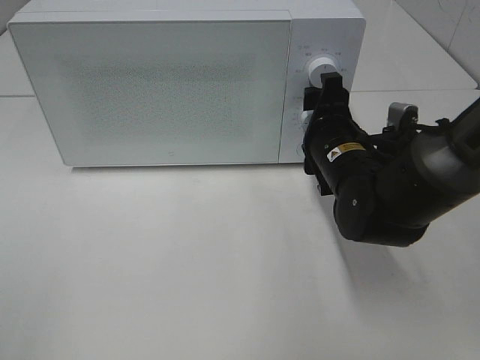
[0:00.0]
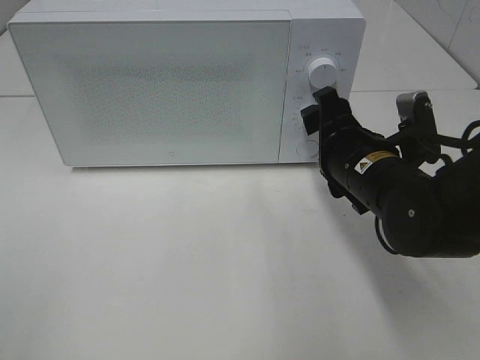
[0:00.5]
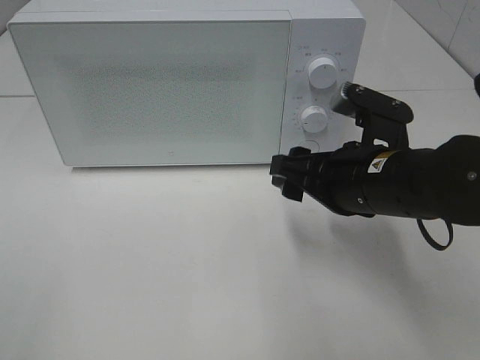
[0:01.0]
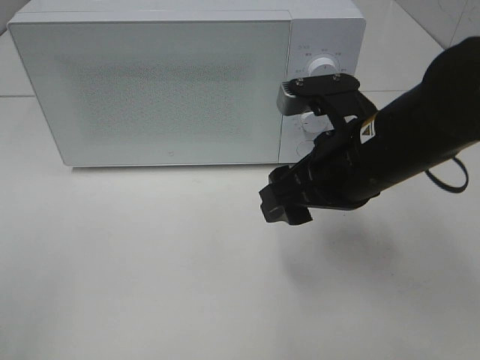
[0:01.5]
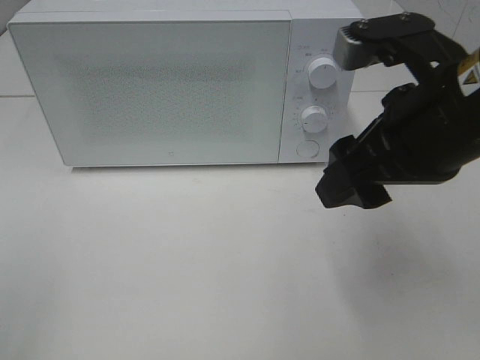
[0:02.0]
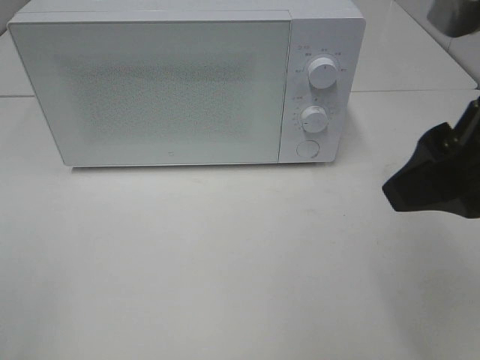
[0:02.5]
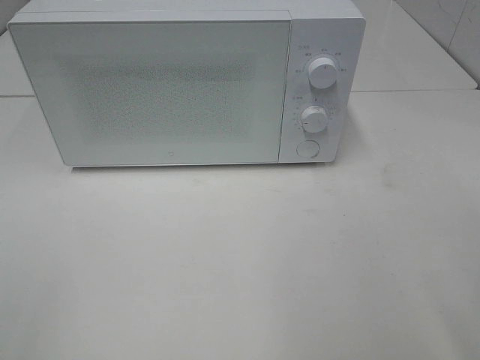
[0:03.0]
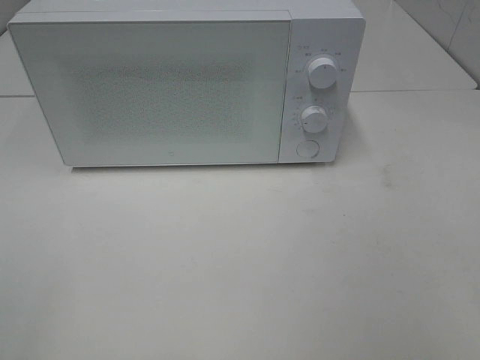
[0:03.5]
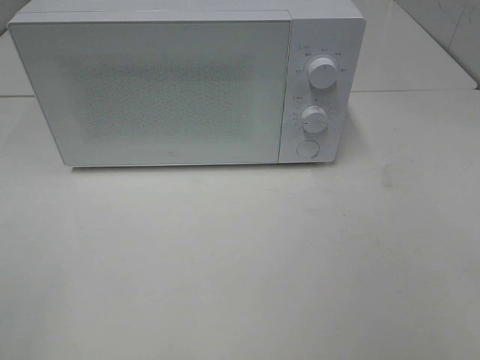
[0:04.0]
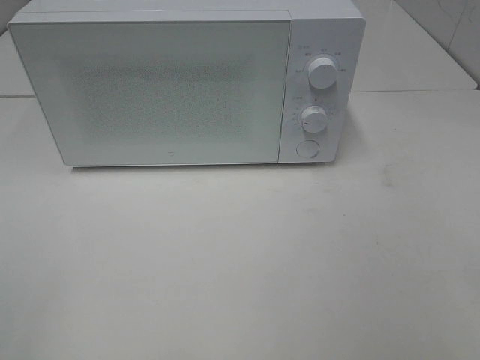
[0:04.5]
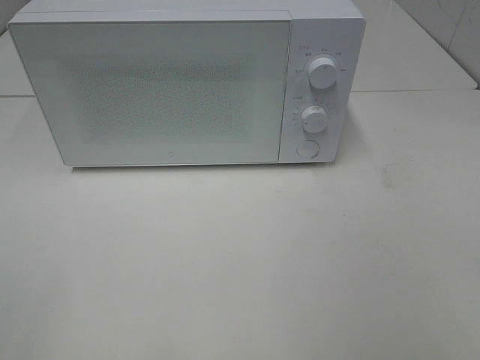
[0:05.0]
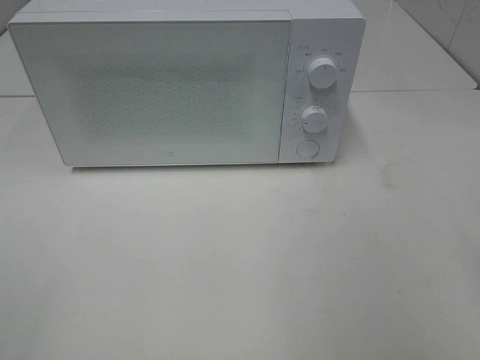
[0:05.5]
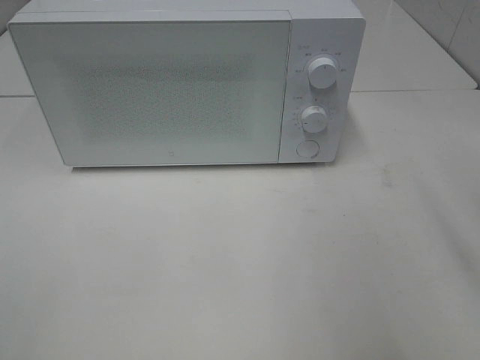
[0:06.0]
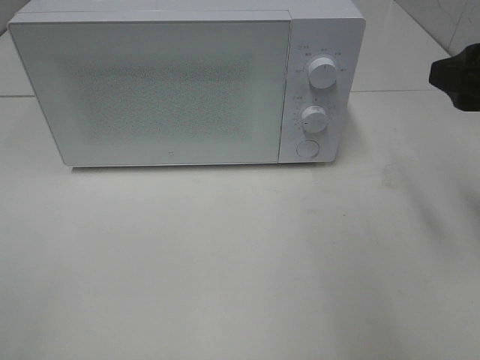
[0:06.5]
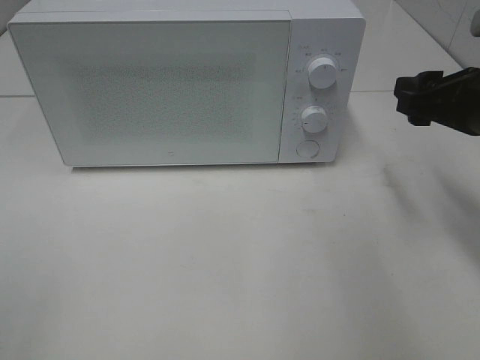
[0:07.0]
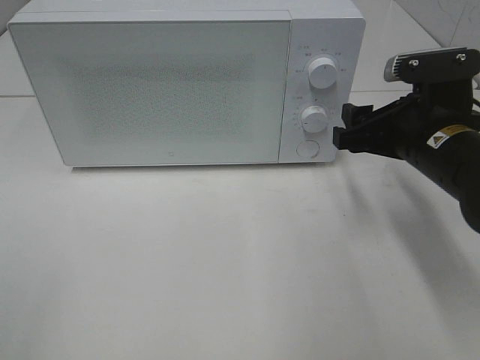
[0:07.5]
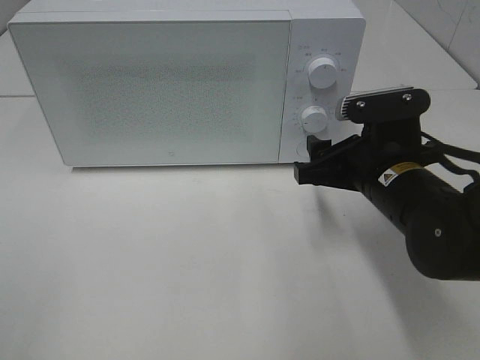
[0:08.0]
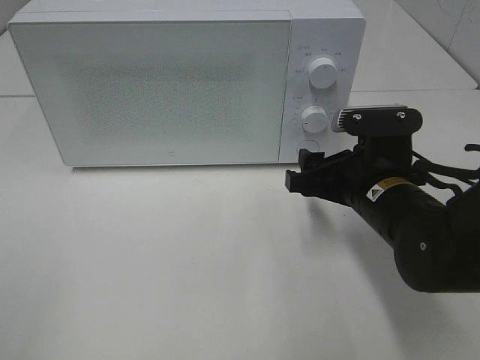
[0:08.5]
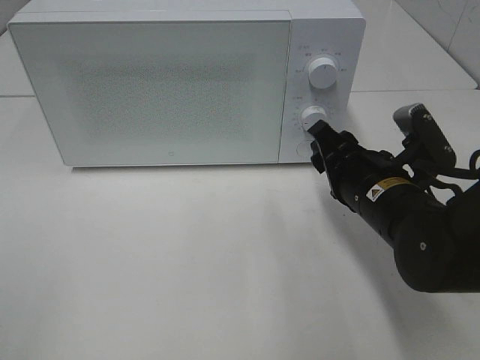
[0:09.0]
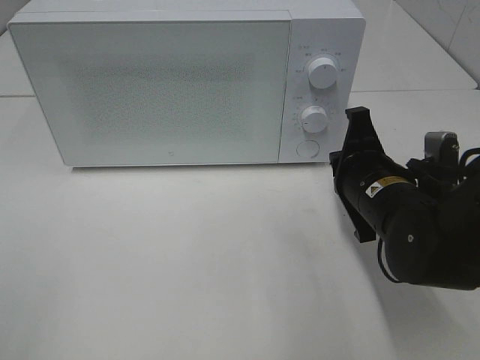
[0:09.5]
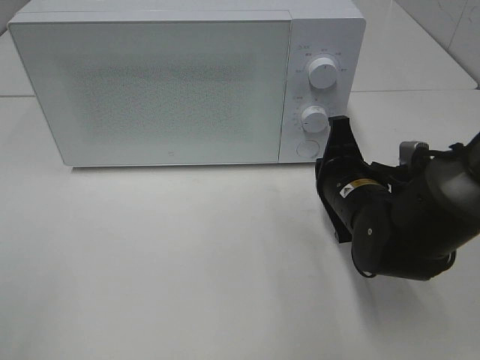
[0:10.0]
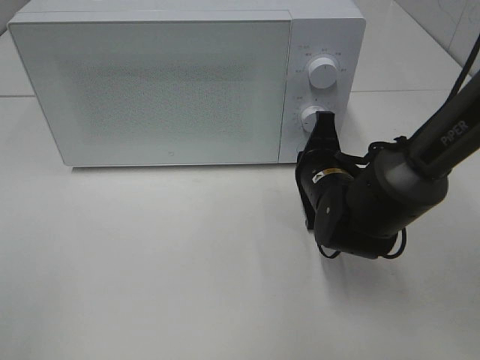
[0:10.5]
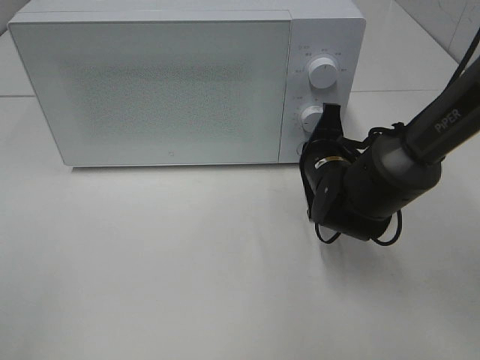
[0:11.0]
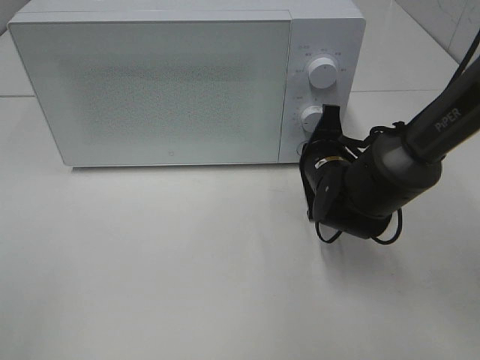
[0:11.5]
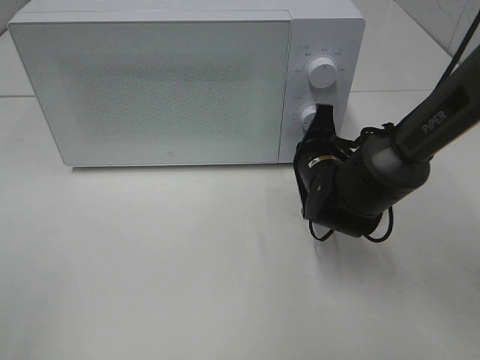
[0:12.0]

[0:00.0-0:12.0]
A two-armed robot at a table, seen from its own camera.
Task of the whole recording: Heat the burger.
0:00.0 to 0:02.0: The right gripper is displaced upward and backward by some 20 cm.
0:02.0 to 0:04.0: The right gripper moves backward and to the right, some 25 cm.
0:06.0 to 0:08.0: The right gripper shifts about 20 cm downward, to the left and forward.
0:08.0 to 0:10.0: The right gripper ends up some 5 cm from where it was, and closes its fingers.
0:10.0 to 0:12.0: The right gripper is displaced forward by roughly 5 cm.

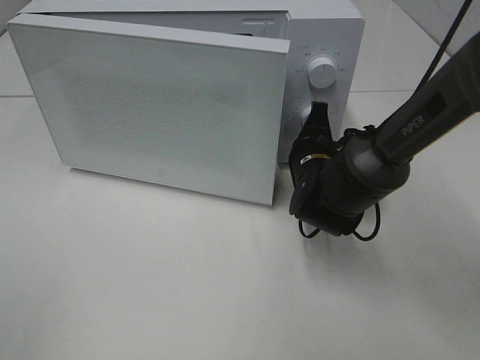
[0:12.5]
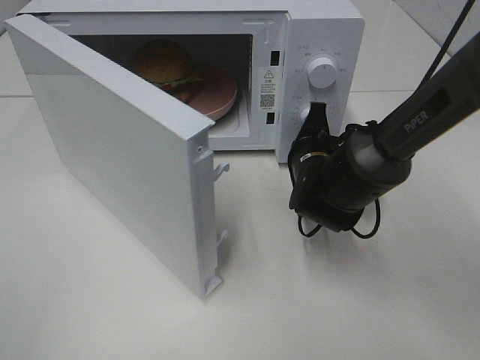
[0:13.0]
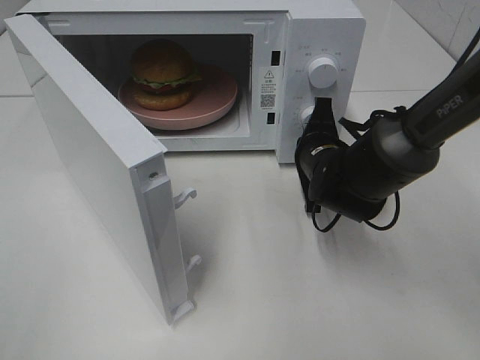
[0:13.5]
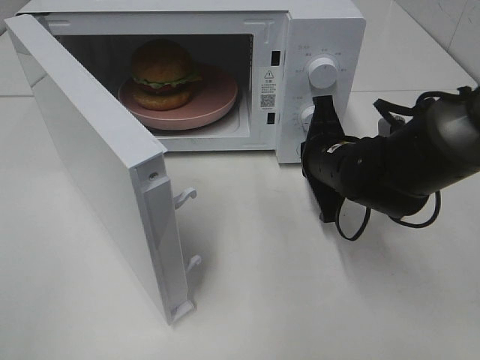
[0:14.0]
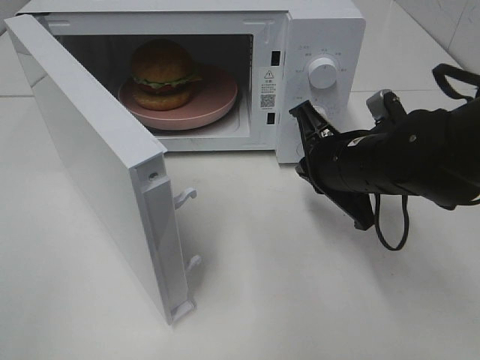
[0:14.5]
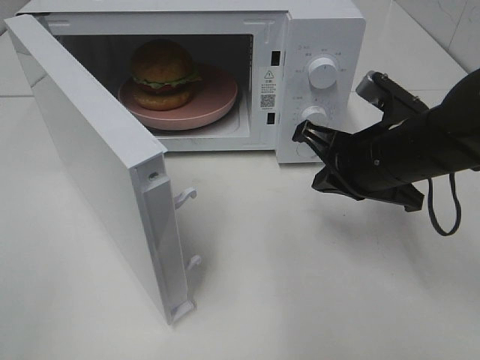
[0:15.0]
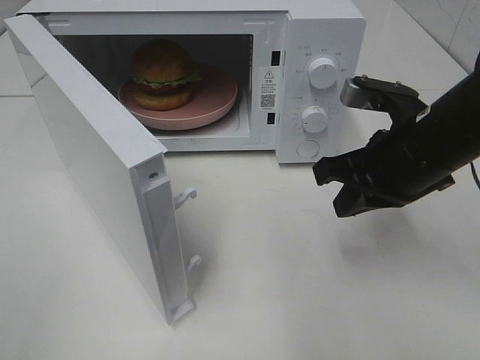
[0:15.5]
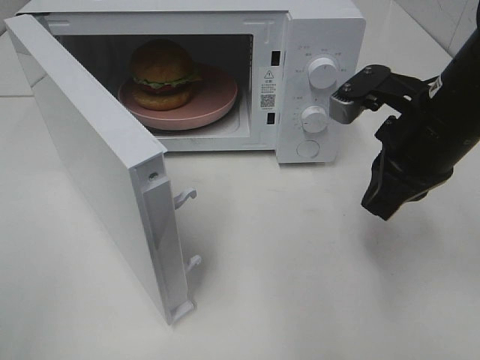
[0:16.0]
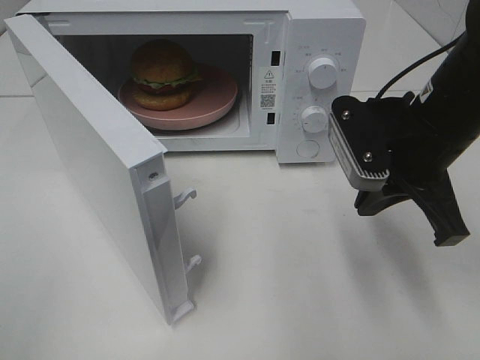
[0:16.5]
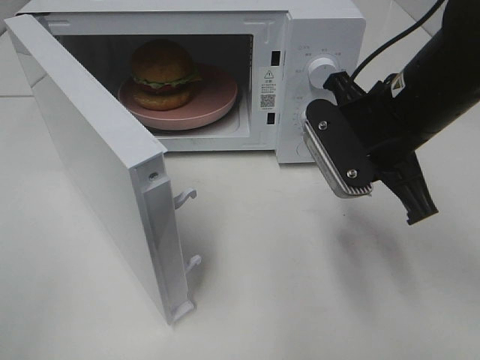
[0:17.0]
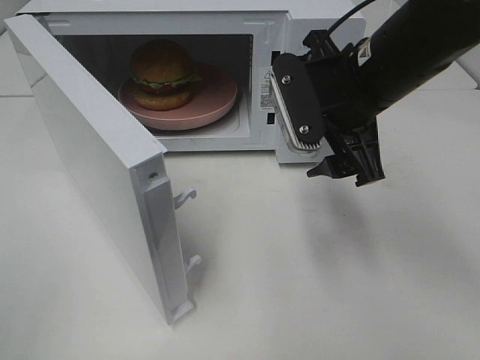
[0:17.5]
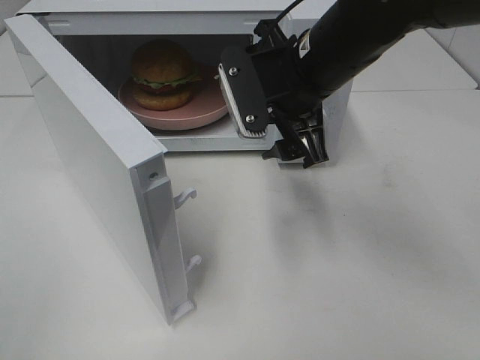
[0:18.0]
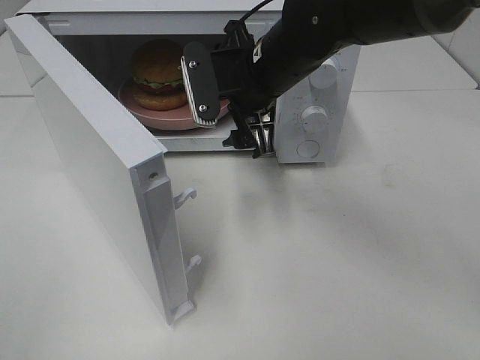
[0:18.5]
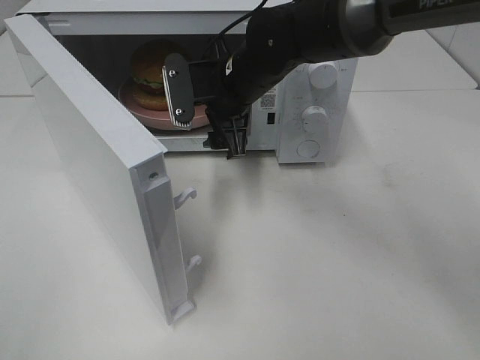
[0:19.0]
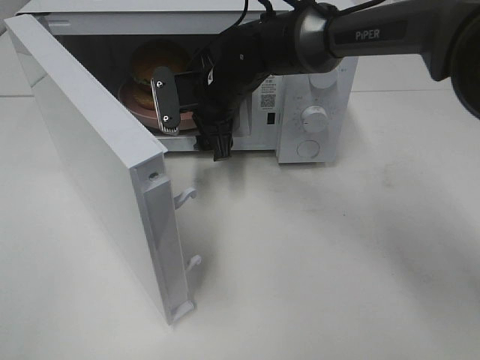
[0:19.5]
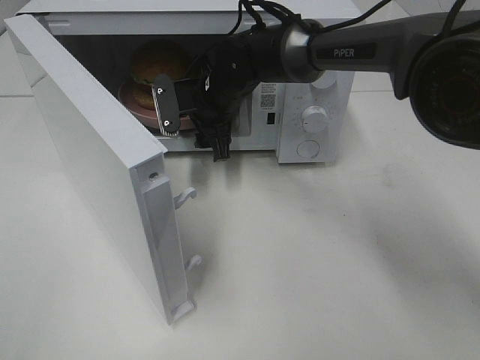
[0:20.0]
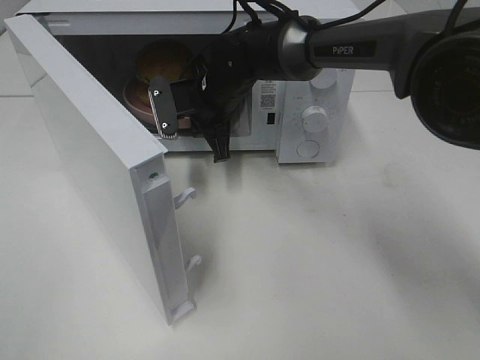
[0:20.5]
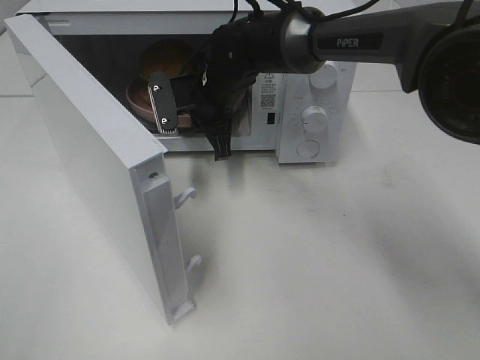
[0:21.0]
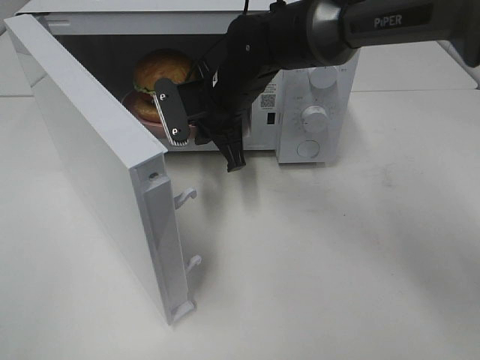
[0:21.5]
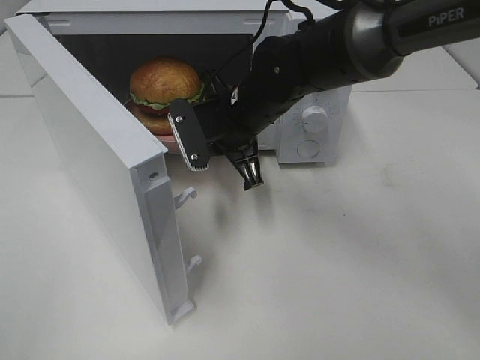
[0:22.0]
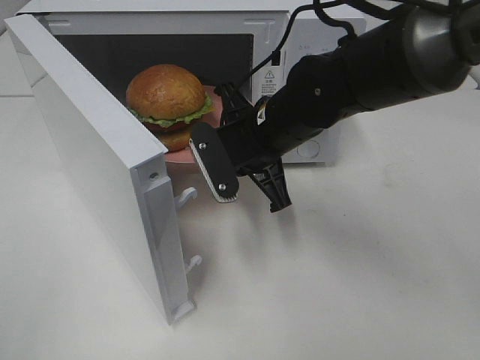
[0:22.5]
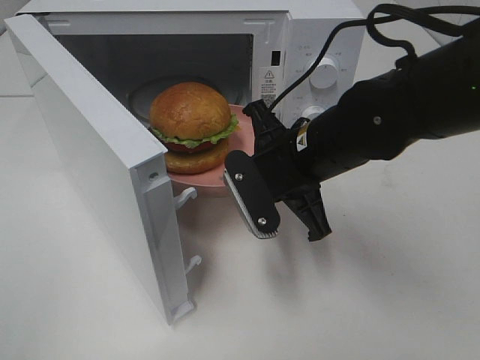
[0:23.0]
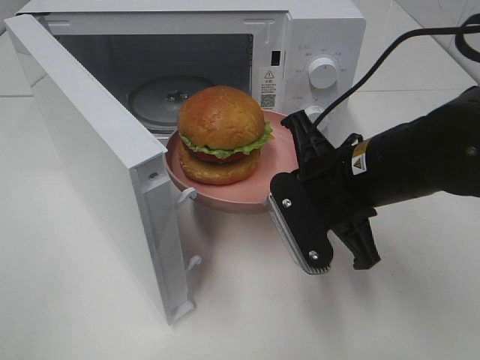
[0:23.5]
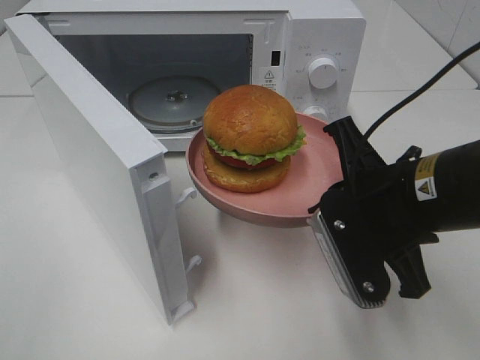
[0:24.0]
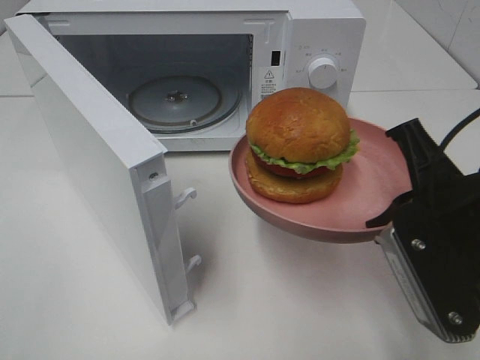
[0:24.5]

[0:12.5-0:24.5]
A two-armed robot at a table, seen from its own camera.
Task of the whole recording: Heat the burger.
Step, 0:14.0 to 0:20.0: Right hand: grab the plate with the hamburger.
0:12.5 to 0:14.5: The right gripper is displaced upward and backward by some 10 cm.
0:14.5 to 0:16.5: The right gripper is displaced upward by approximately 5 cm.
0:16.5 to 0:18.5: The right gripper shifts roughly 15 cm to the left and forward, and opens.
0:18.5 to 0:20.5: The right gripper heads forward, downward and to the left, covering some 15 cm, and closes.
0:20.5 to 0:22.5: The right gripper moves backward and to the right, approximately 15 cm.
0:22.5 to 0:24.5: The right gripper is displaced backward and to the right by some 20 cm.

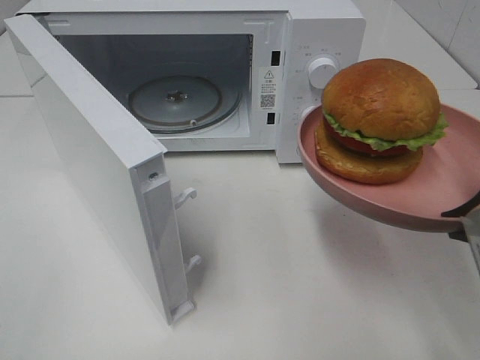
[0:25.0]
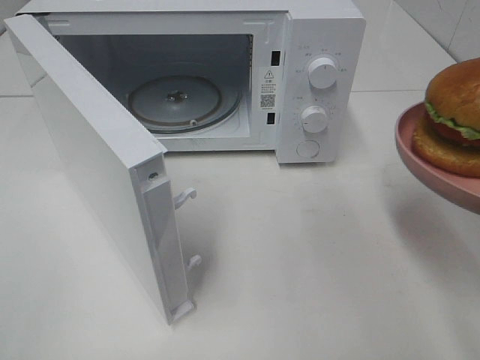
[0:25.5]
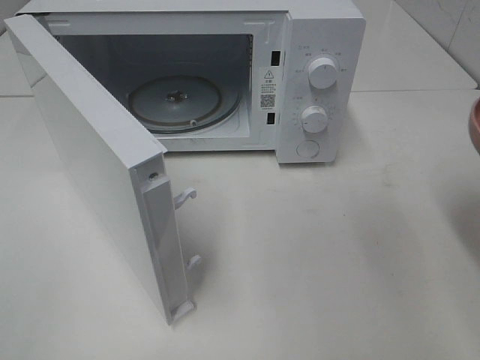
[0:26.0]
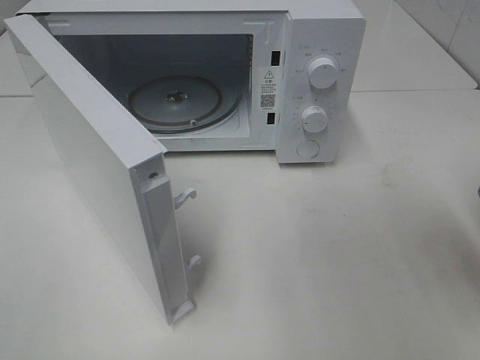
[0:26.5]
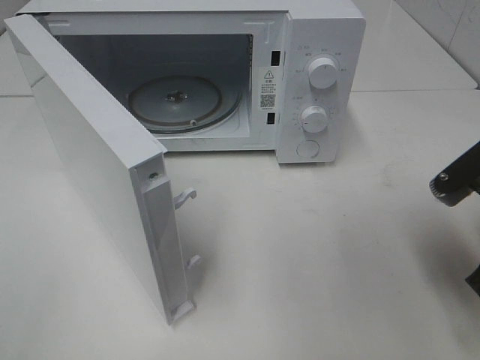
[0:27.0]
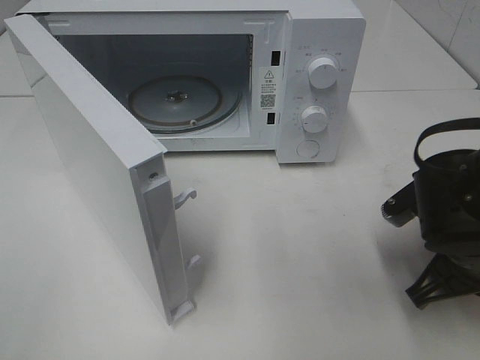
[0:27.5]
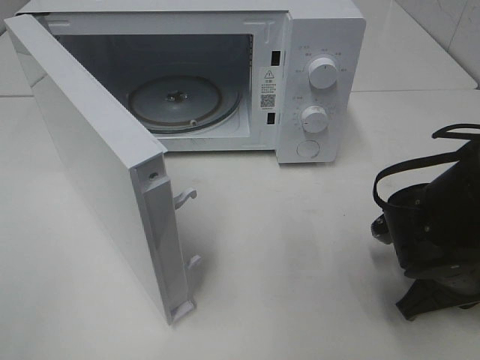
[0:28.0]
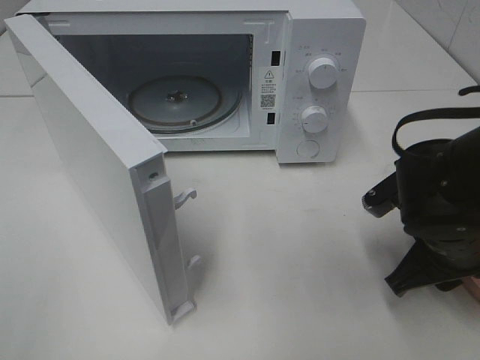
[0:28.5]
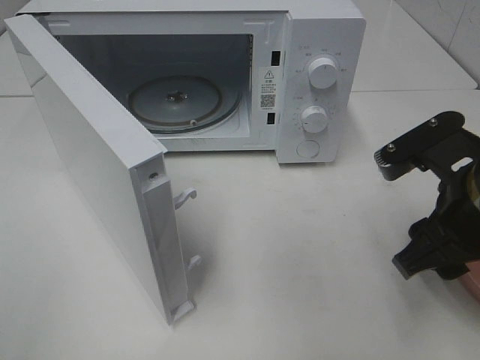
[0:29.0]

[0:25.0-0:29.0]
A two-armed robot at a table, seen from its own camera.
Task of the whole recording: Heat the burger.
Step, 0:25.0 to 0:28.0: Right hand: place the plate on the table.
0:25.0 to 0:27.0: The right gripper heads downward and forward, covering approximately 10 cm.
0:27.0 to 0:29.0: The right gripper moves roughly 10 cm downward and comes back, and opens its fingers.
